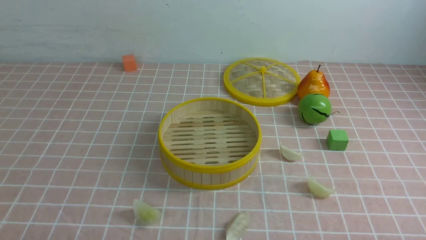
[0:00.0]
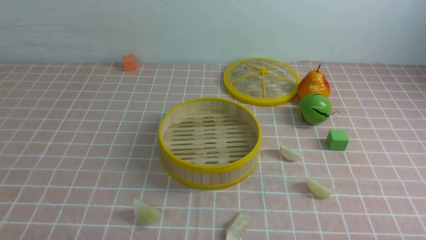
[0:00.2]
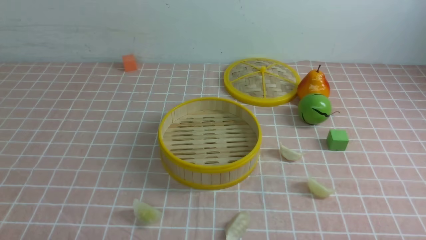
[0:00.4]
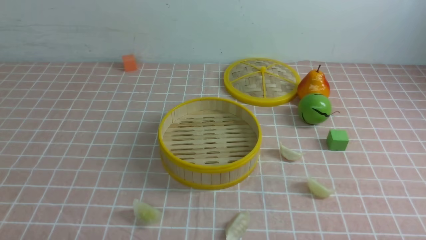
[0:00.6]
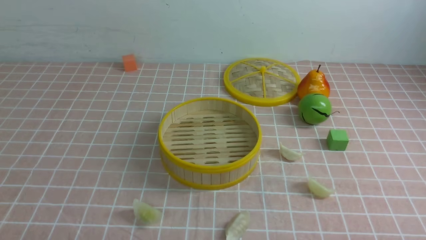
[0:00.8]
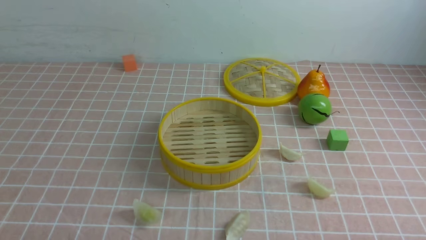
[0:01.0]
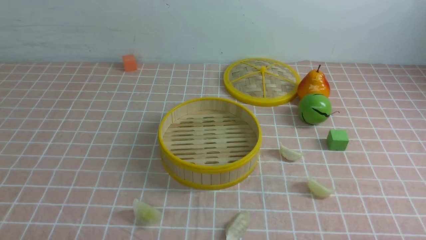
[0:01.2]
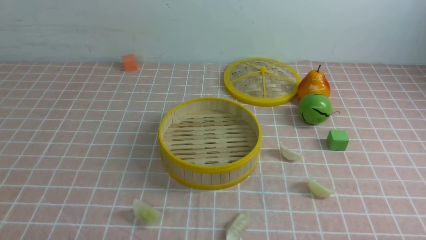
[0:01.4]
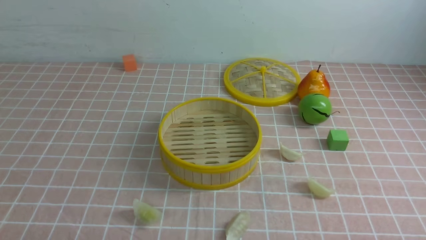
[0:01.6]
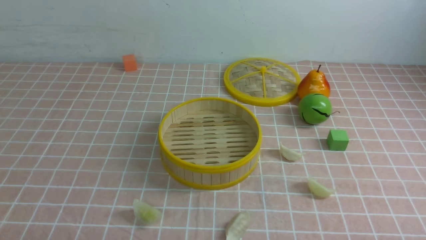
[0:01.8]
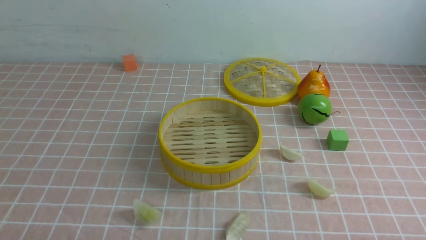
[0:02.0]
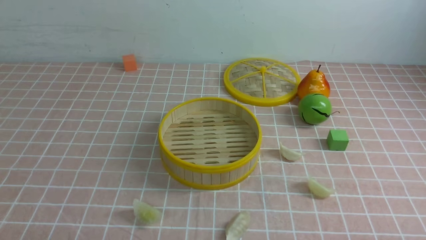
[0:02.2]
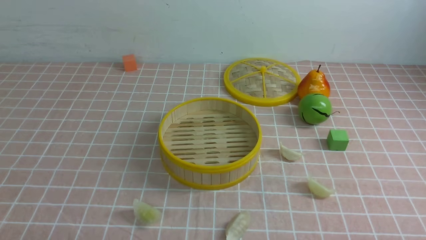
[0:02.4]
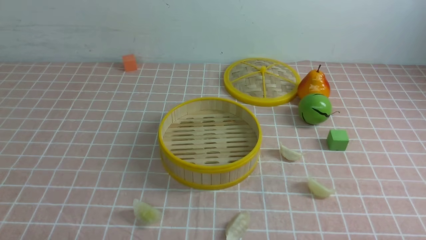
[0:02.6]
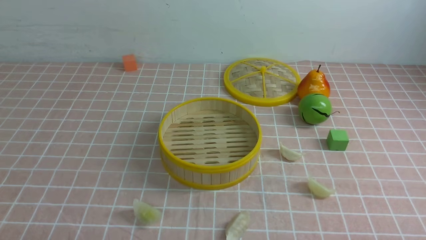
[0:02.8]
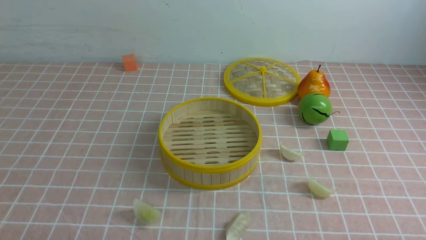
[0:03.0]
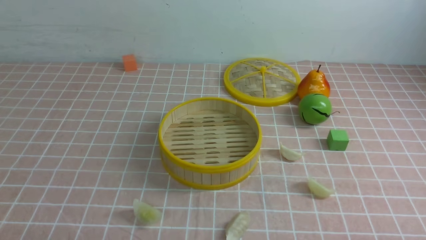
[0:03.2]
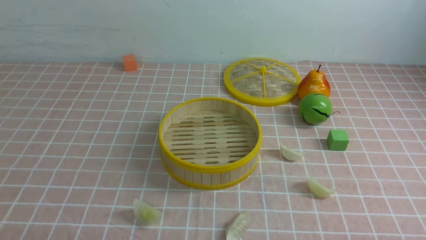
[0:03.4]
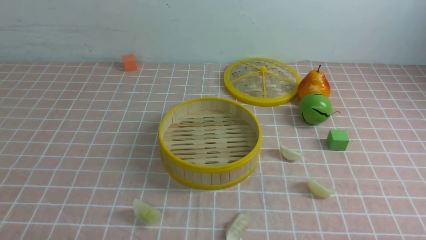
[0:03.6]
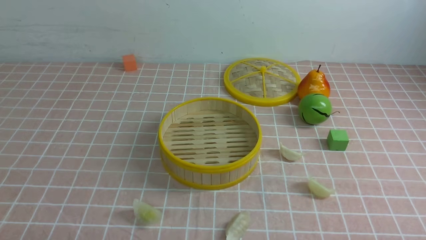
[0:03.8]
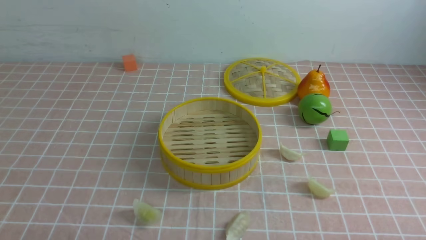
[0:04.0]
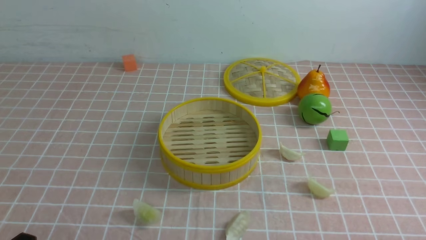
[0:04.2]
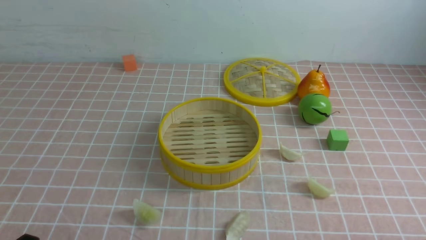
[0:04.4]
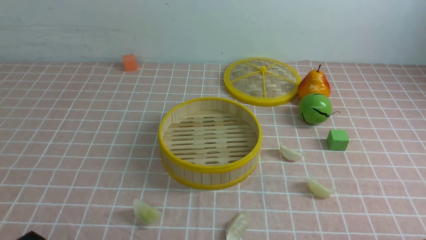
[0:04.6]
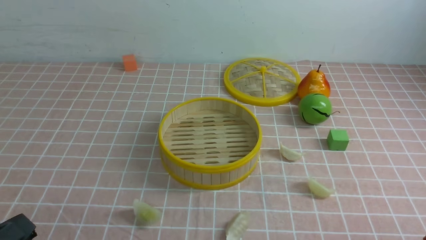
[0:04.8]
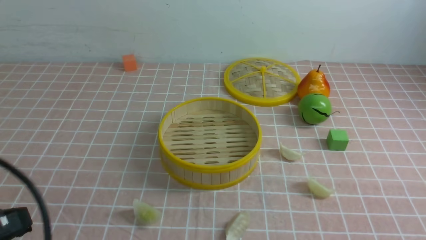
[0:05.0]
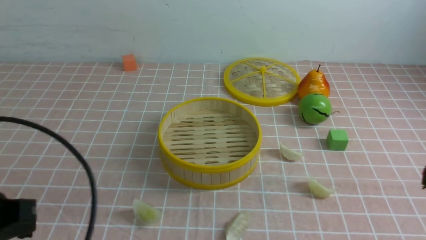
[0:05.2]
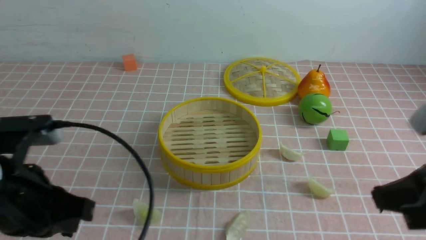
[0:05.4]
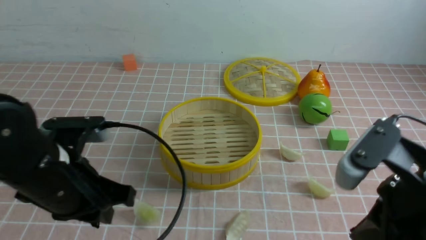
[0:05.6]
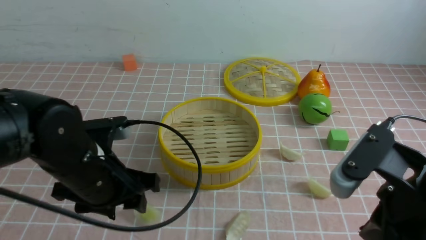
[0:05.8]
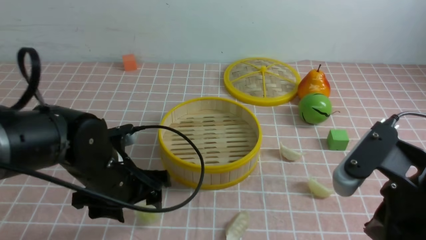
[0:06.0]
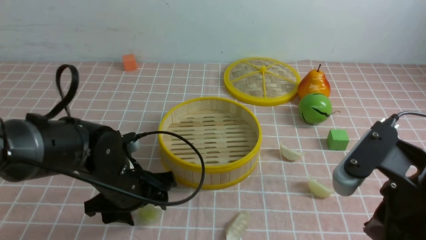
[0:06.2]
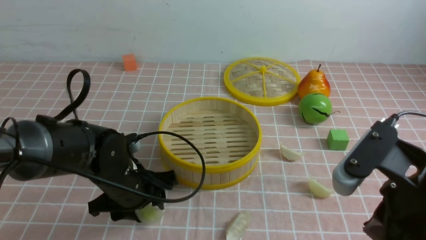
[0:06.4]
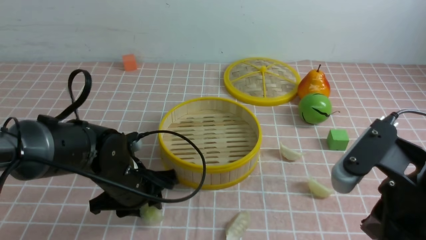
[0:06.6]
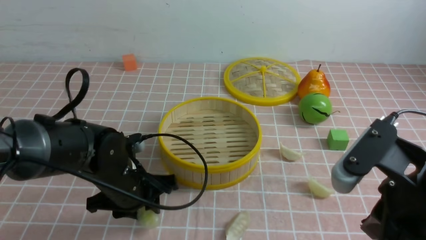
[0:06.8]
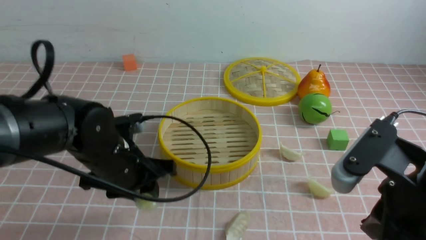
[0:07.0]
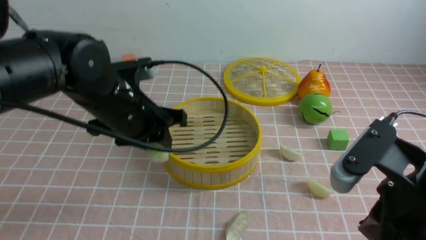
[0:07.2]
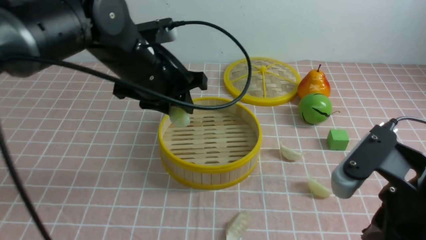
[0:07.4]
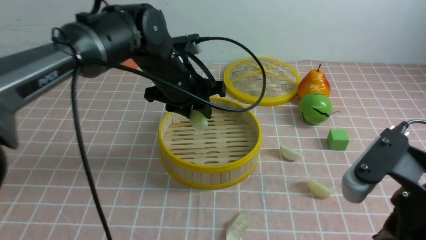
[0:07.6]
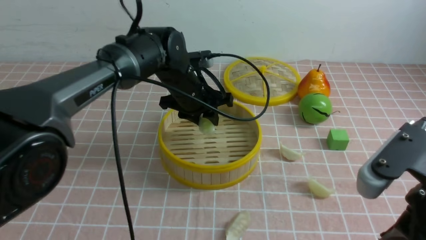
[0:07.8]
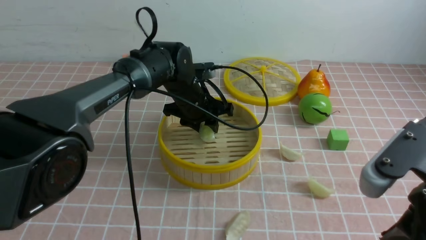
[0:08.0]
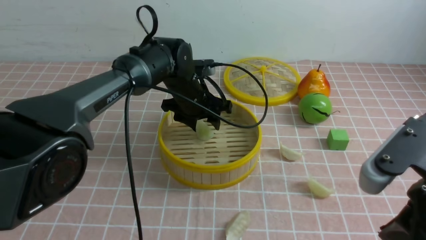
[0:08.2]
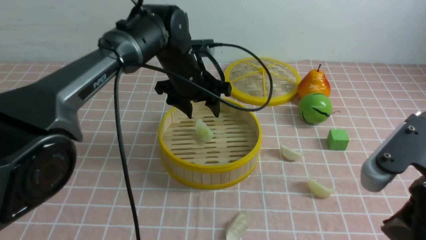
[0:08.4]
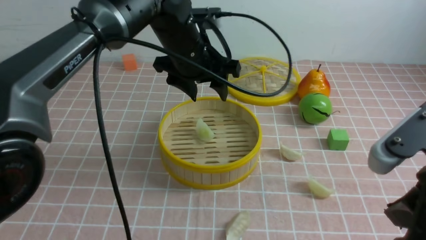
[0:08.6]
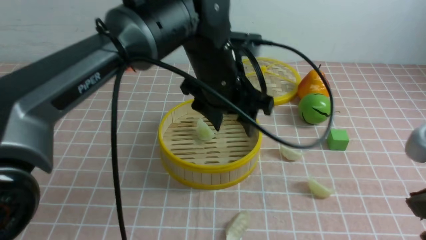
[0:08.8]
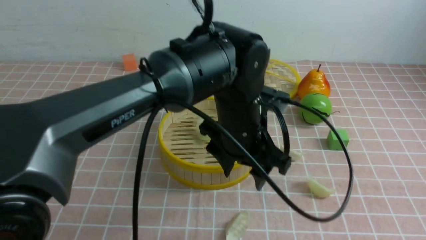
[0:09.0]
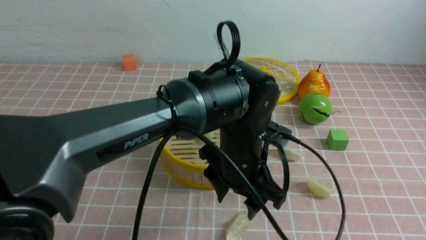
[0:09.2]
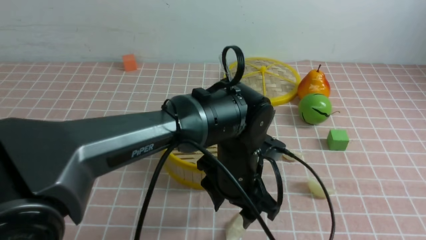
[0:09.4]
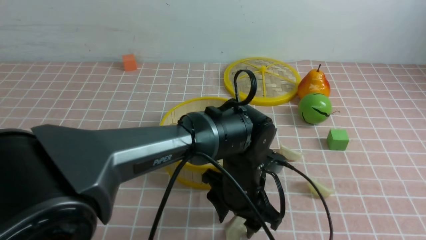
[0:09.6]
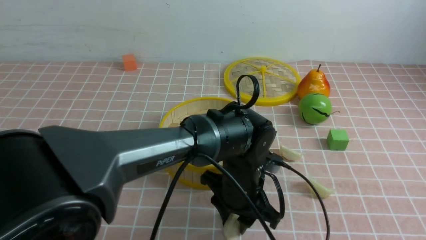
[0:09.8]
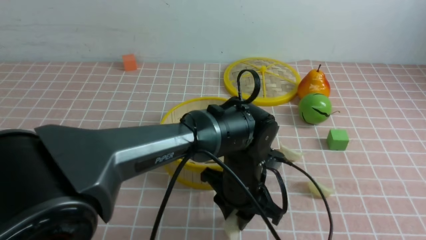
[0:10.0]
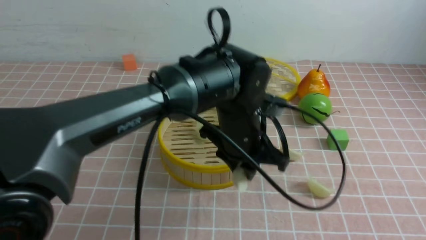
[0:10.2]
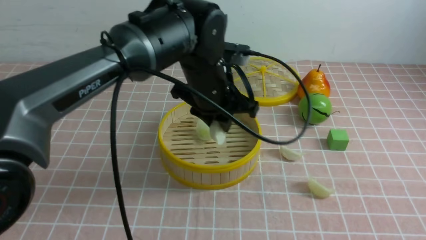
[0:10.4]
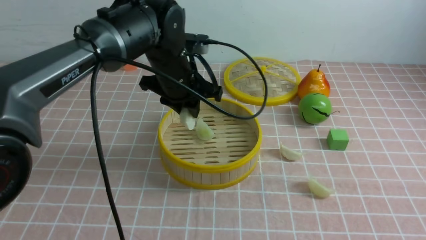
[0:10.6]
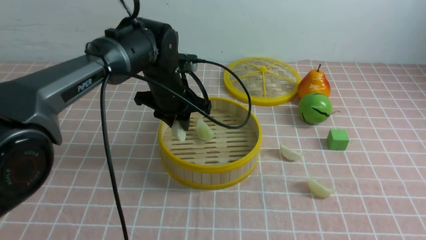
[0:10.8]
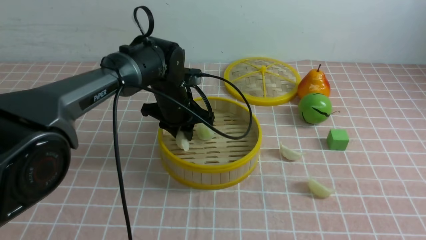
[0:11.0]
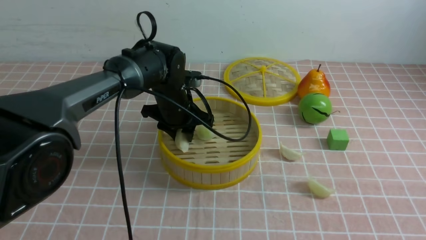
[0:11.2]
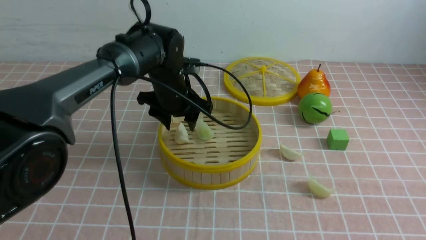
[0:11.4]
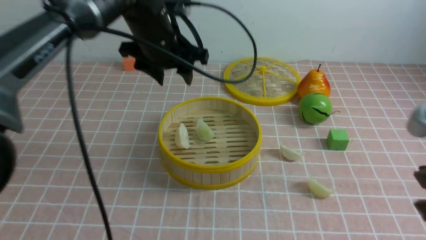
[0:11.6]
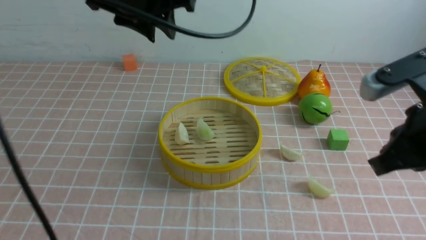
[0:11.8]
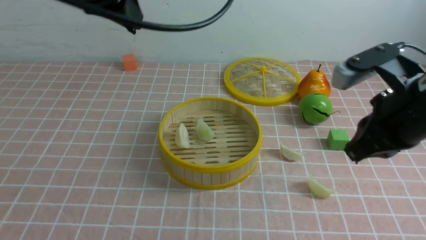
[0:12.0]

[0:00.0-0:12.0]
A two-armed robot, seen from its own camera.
Task of the whole recording: put the dumplings into the steamer on the table with the pink tablecloth.
Step, 0:00.0 to 0:06.8: use the left arm to grab a dumpling.
Step, 0:07.0 to 0:08.4: use the left arm to put the dumpling into the steamer.
Step, 0:08.6 to 0:10.0: use the left arm to grab a dumpling.
Step, 0:10.2 to 0:11.4: use the left arm to put the dumpling into the steamer.
0:04.4 to 0:06.0: The left gripper heads forward and to the right, covering about 25 cm, and opens its fingers. Meanwhile the right gripper shifts some 20 cm upward, forward and to the left, and closes.
0:06.0 to 0:07.6: The left gripper travels forward, upward and to the right by about 15 cm, and closes its fingers.
0:07.6 to 0:09.0: The right gripper ends up about 5 cm from where it was. Meanwhile the left gripper travels to the right by roughly 10 cm, and opens up.
0:09.0 to 0:10.4: The left gripper moves about 10 cm downward and comes back, and closes up.
0:10.4 to 0:12.0: The left gripper moves upward and to the left, about 25 cm, and opens, then closes again. The right gripper is displaced forward by approximately 15 cm.

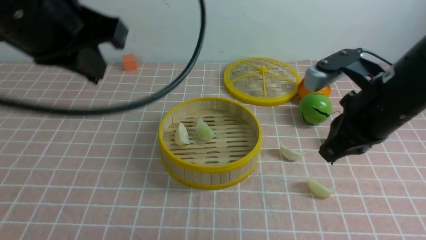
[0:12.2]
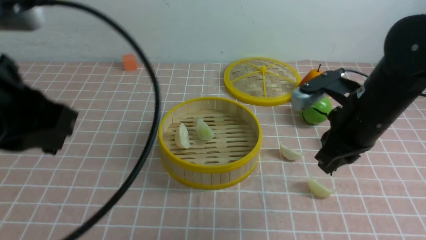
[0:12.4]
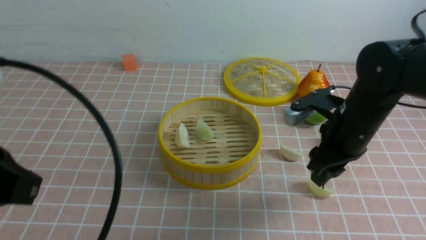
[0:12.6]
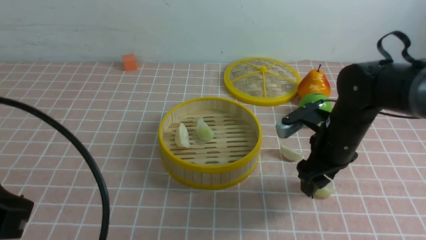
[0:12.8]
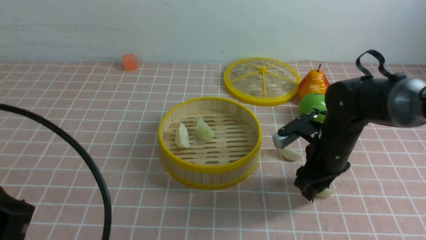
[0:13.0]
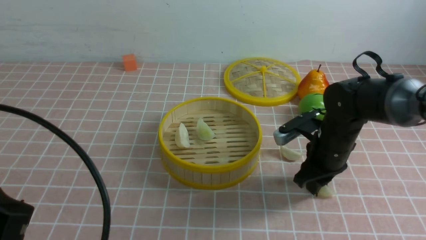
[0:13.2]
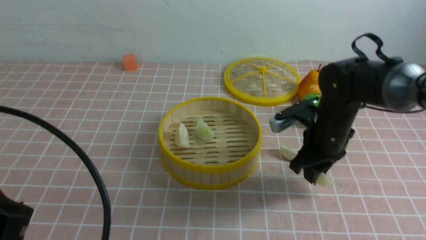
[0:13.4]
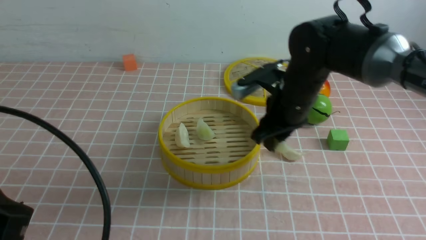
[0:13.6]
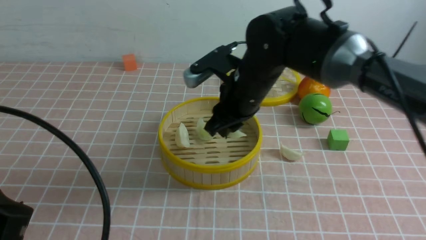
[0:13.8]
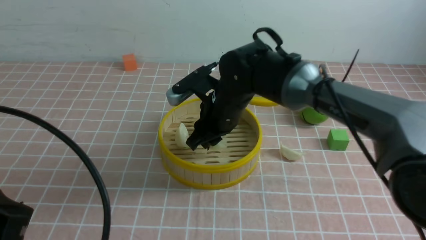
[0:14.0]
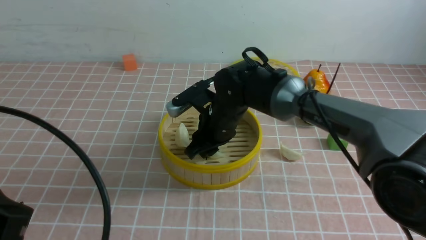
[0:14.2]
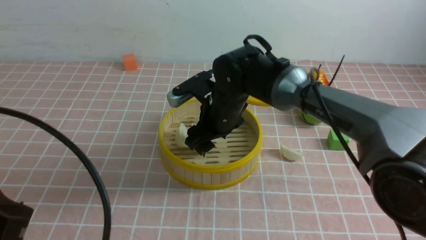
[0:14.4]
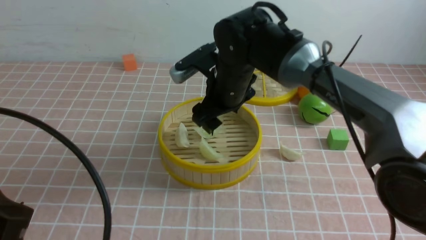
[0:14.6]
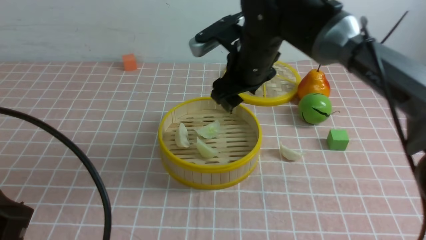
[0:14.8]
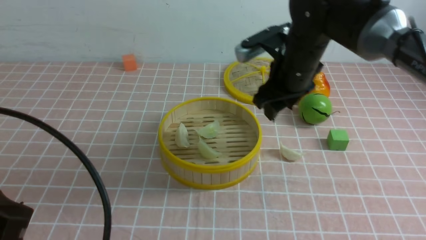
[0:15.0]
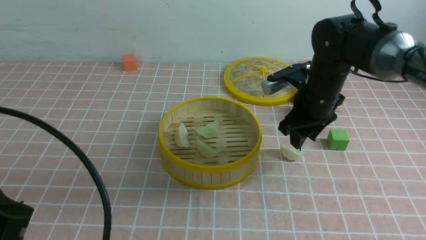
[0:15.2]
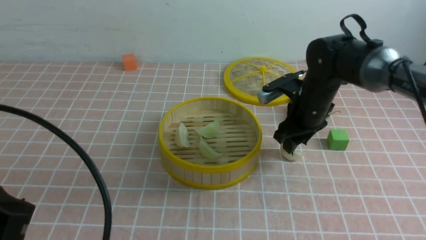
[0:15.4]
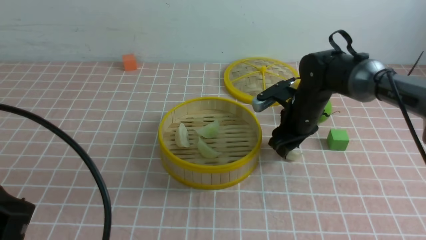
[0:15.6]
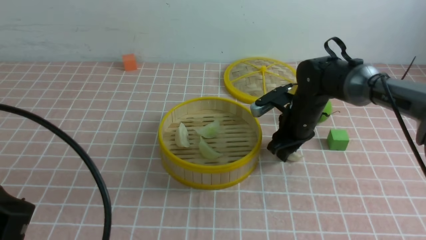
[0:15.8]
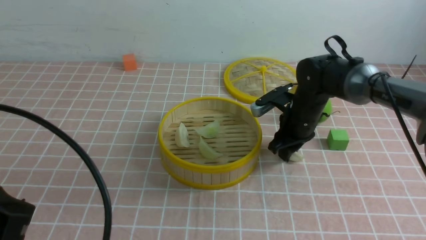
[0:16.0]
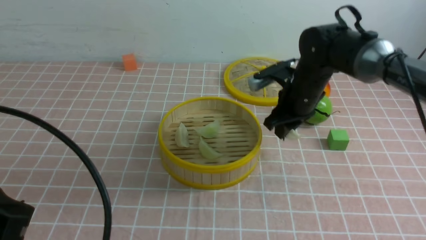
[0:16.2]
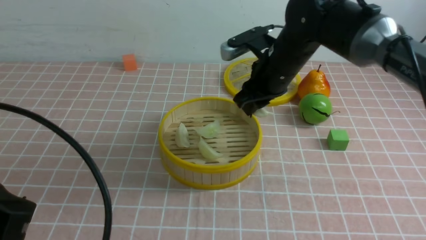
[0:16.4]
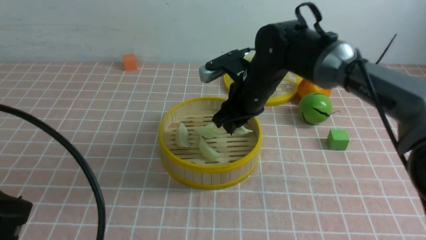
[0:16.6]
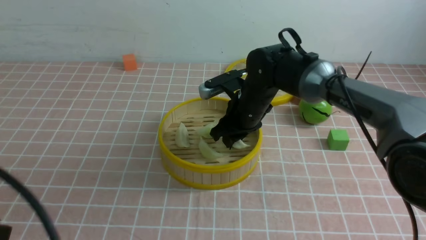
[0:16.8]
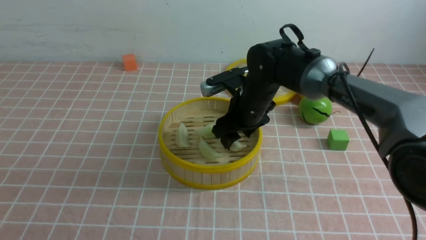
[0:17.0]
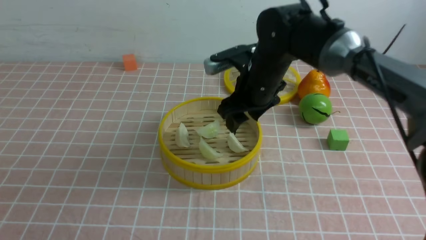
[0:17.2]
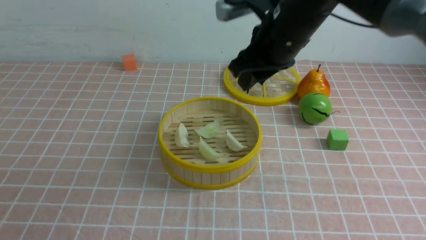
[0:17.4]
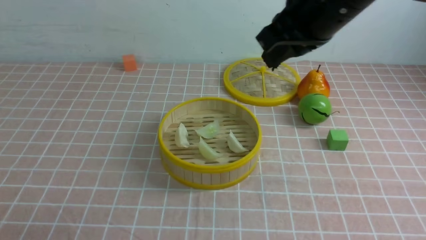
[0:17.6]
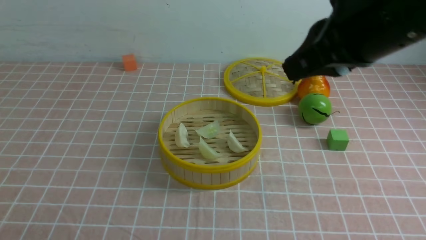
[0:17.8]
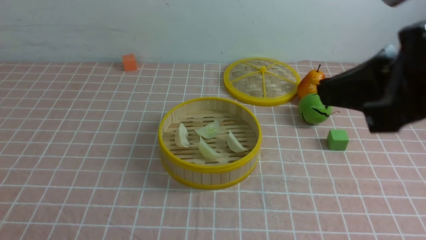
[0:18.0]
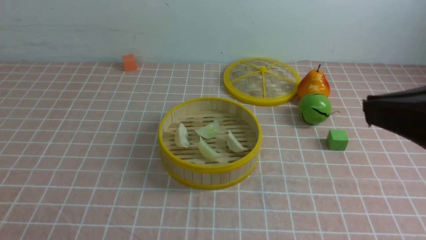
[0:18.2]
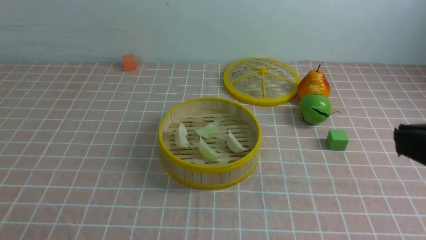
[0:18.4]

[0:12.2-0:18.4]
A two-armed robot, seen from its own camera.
Task of the whole recording: put the dumplings into the steamer on the table with the pink tablecloth.
Step, 0:12.2 to 0:13.4: use the right arm to grab a dumpling.
Step, 0:13.6 to 0:14.6: use the right arm to put the dumpling into the steamer.
Step, 0:14.8 to 0:16.0: use the right arm to grab a dumpling.
Step, 0:16.2 to 0:17.2: use the right arm to put the dumpling into the steamer.
0:12.2 to 0:13.8: The right gripper moves forward, to the left and downward, roughly 20 cm, and opens up; the left gripper shifts some 20 cm backward, downward and to the left.
0:13.8 to 0:15.4: The right gripper heads to the right, covering some 10 cm.
0:15.4 to 0:16.8: The right gripper heads to the left, covering some 10 cm.
0:16.8 to 0:18.4: The left gripper heads downward and backward, covering approximately 10 cm. Meanwhile the right gripper goes some 40 cm backward, upward and to the right, and closes up.
